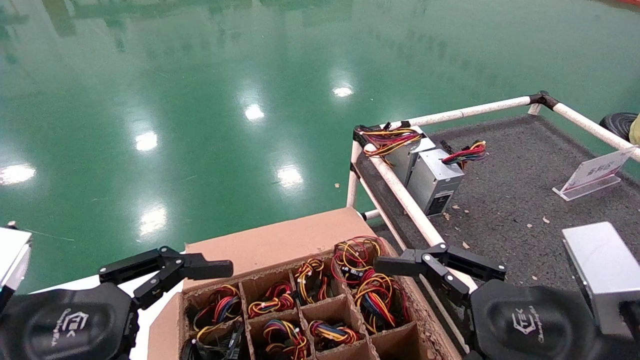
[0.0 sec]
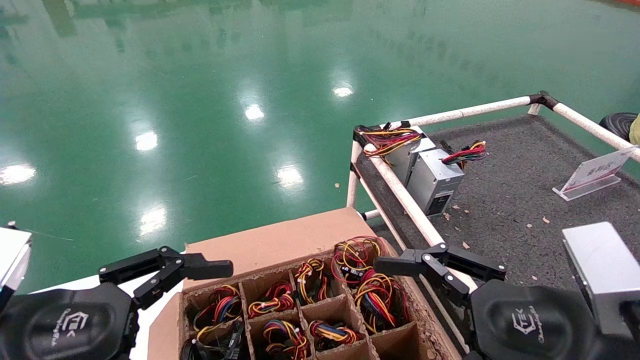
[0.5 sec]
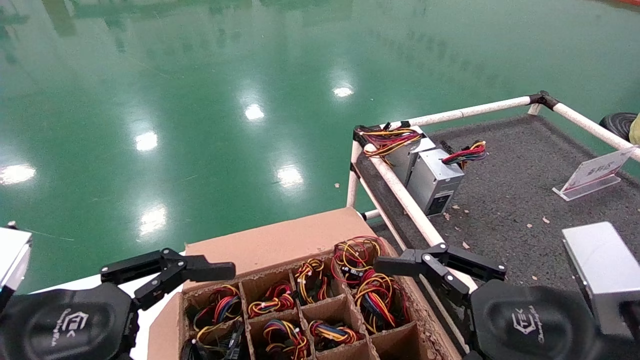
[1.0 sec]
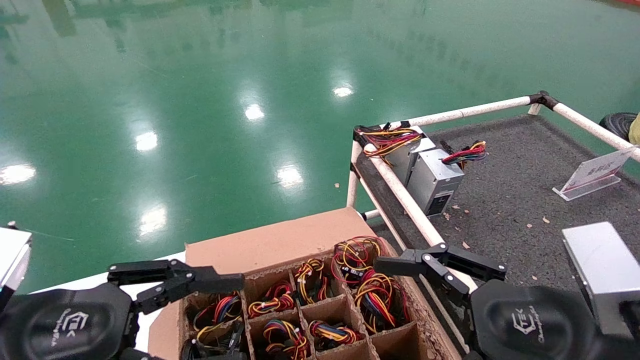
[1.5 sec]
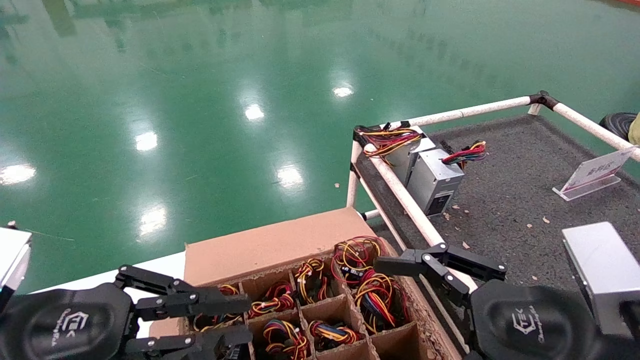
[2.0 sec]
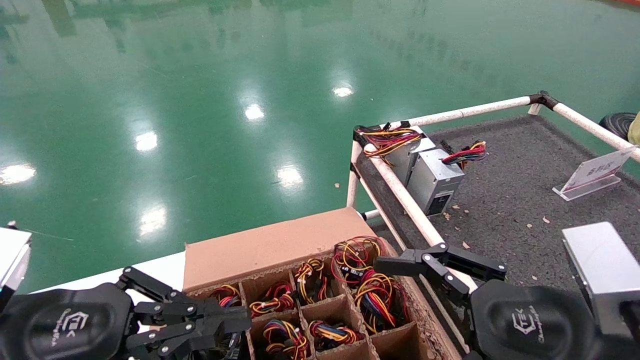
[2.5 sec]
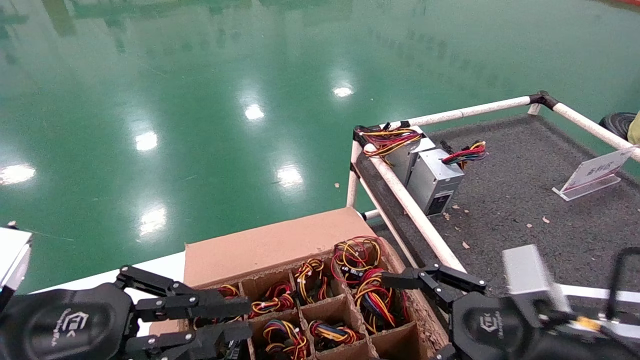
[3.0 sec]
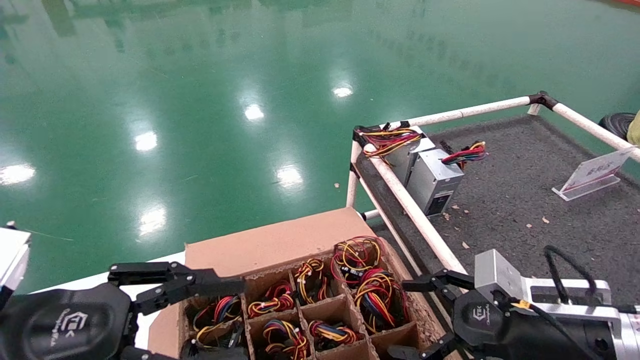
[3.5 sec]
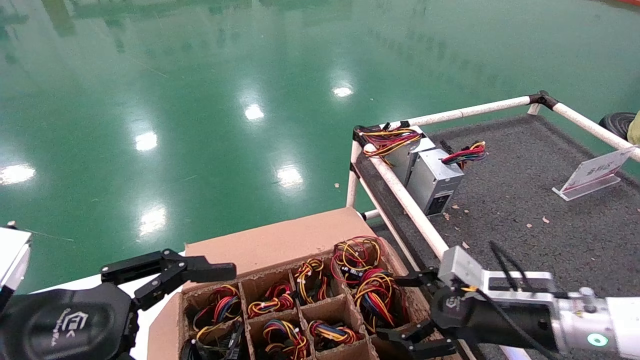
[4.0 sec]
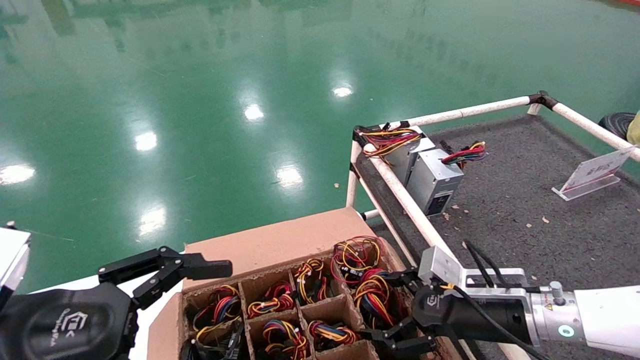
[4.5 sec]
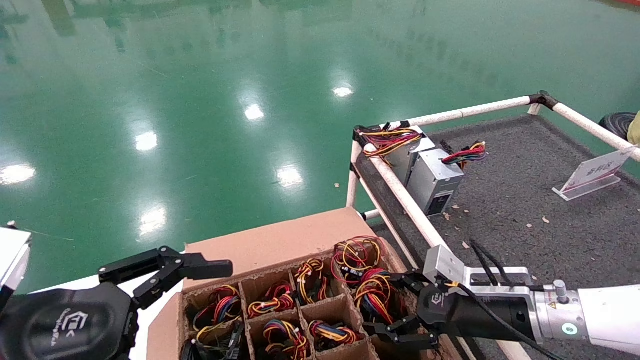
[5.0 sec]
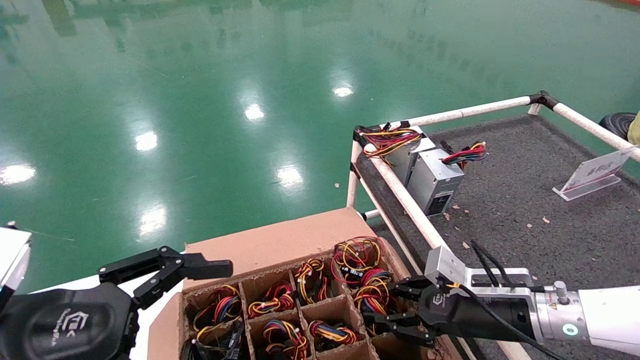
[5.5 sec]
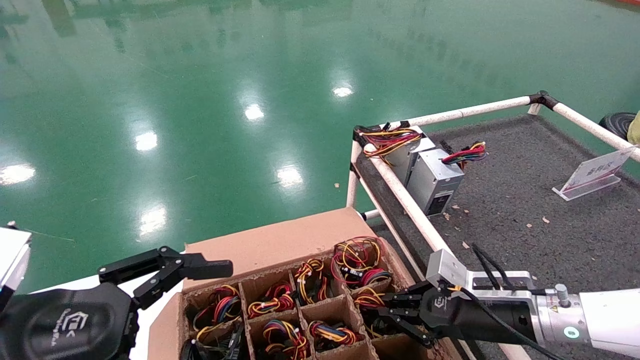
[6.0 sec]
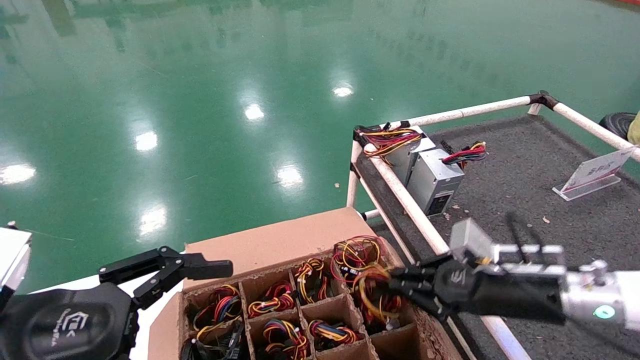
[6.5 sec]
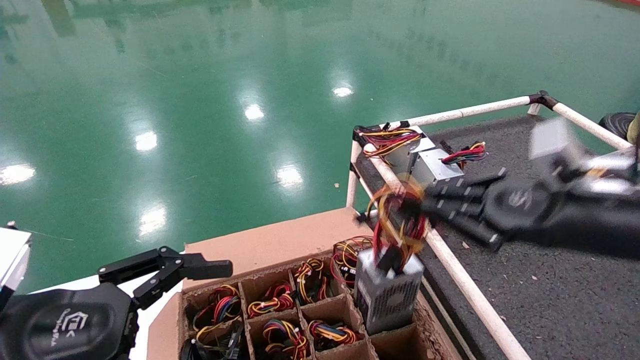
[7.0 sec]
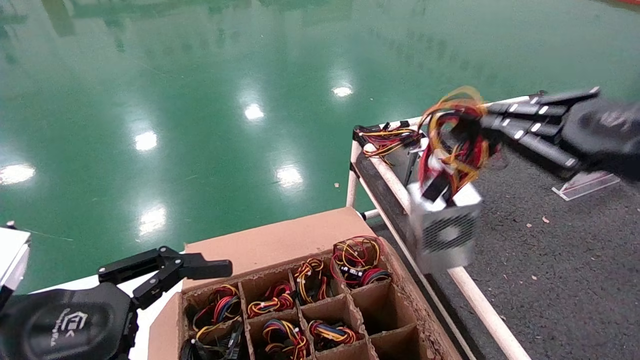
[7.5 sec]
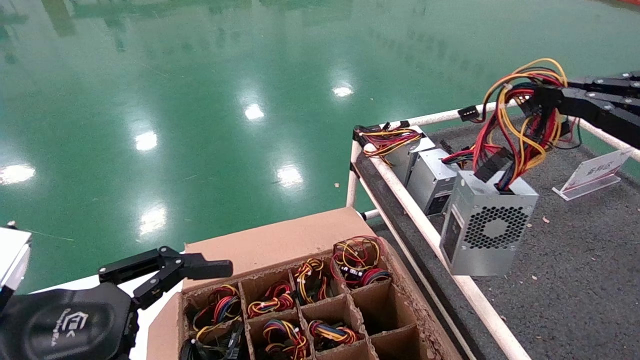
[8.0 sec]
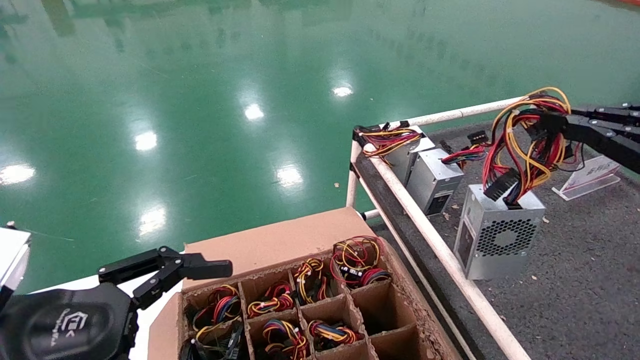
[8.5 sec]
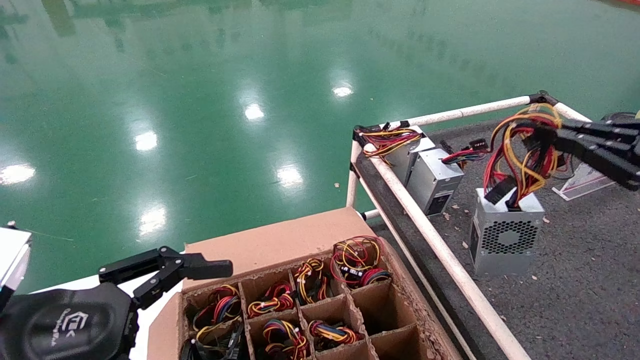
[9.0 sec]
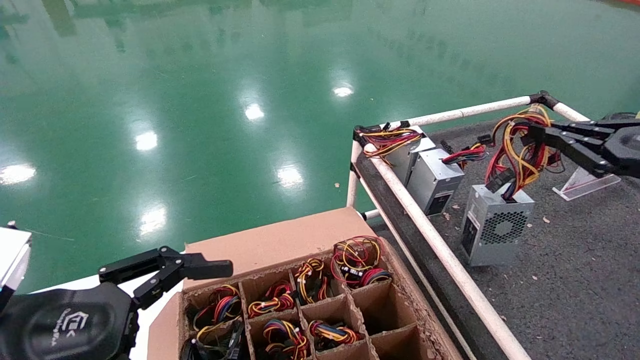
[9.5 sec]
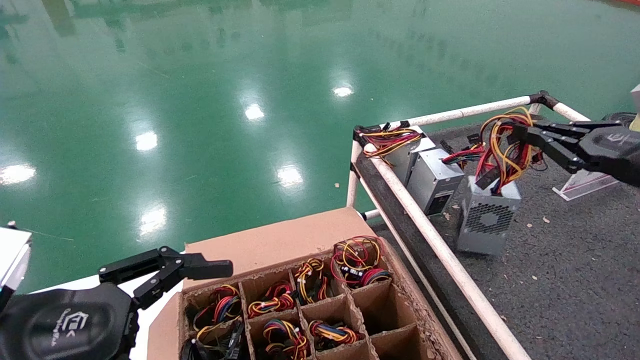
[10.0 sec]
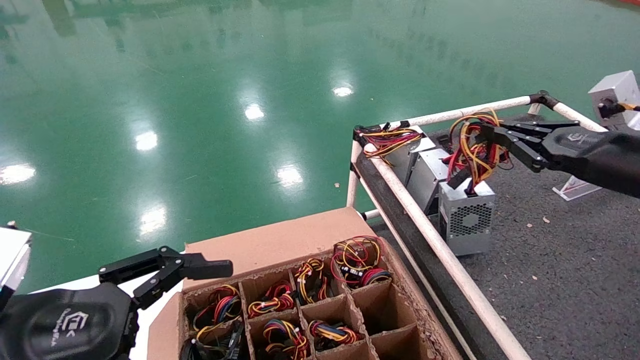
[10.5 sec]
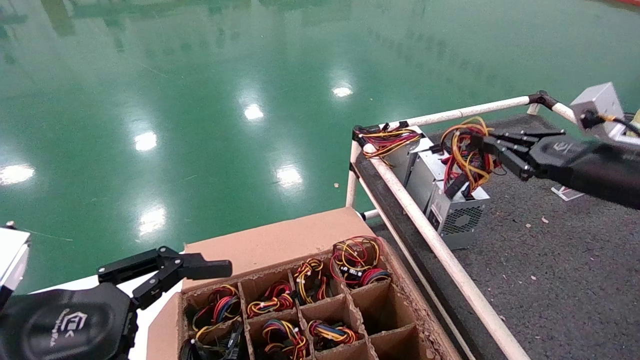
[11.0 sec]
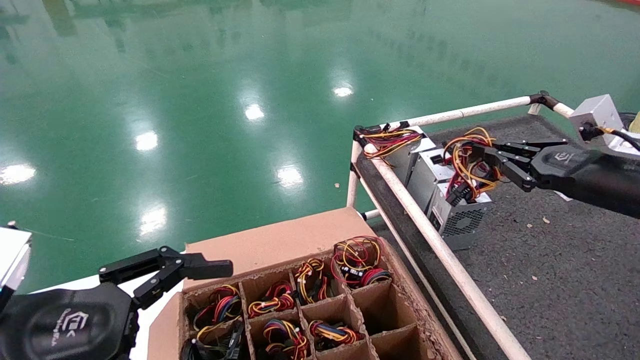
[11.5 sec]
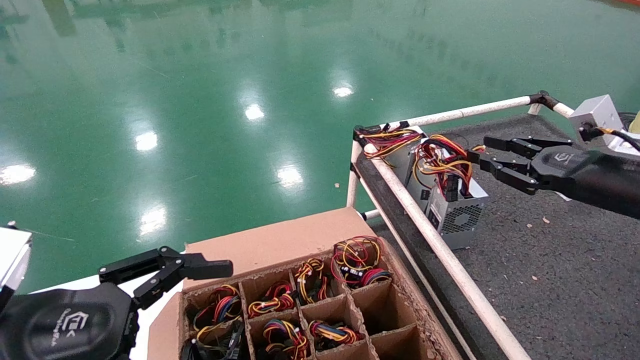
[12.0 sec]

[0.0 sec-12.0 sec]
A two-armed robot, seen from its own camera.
Step, 1.0 sec to 5.5 sec: Grab and lift the power supply from the large box.
Step, 6.0 sec to 11.5 sec: Place the power supply on the operating table.
0.0 sec to 2.0 sec: The left gripper closes its fingers.
2.0 sec to 4.0 sec: The right gripper goes some 15 cm forward and downward. Meanwhile the left gripper opens its fingers.
4.0 sec to 6.0 sec: The right gripper closes its fingers.
6.0 sec to 8.0 sec: The right gripper heads upward, backward and to the right, covering some 30 cm.
8.0 sec to 10.0 sec: The right gripper heads forward, covering some 15 cm.
10.0 sec to 12.0 sec: The right gripper shifts by approximately 5 cm.

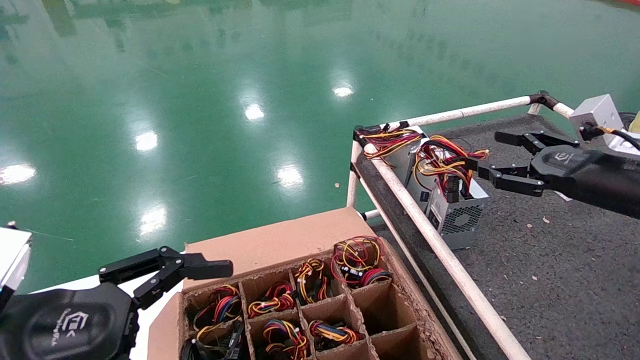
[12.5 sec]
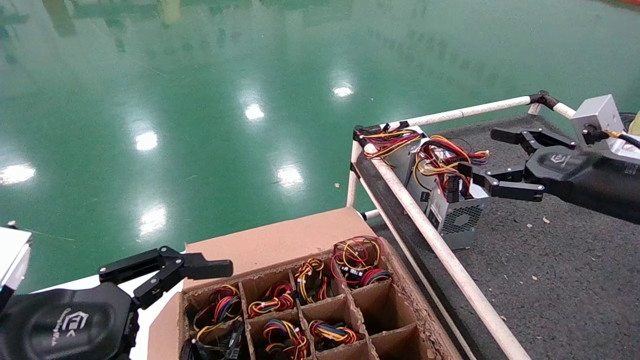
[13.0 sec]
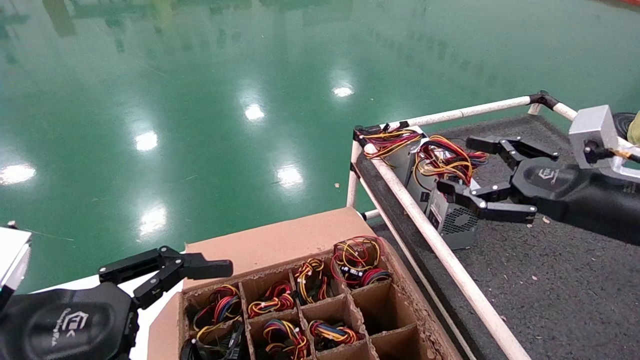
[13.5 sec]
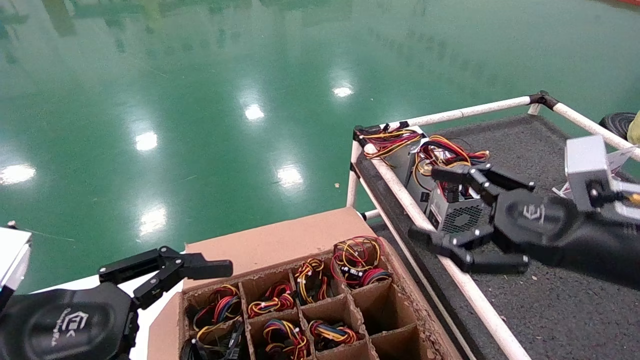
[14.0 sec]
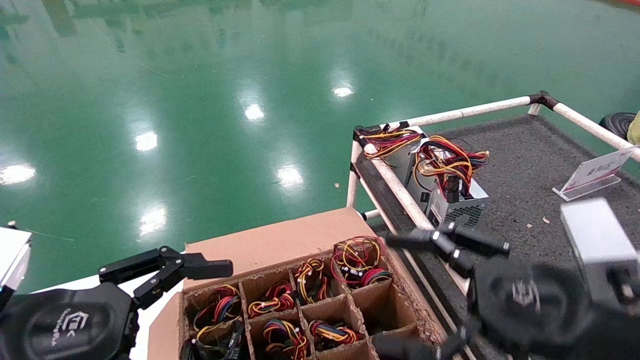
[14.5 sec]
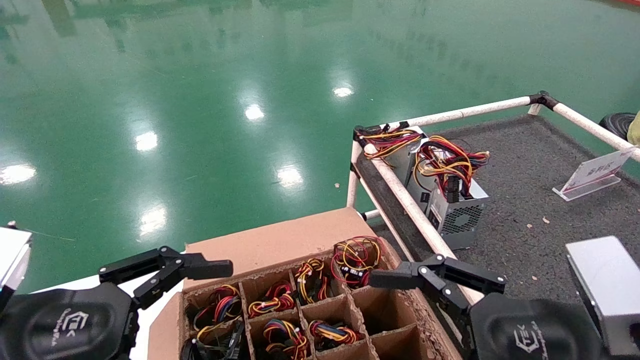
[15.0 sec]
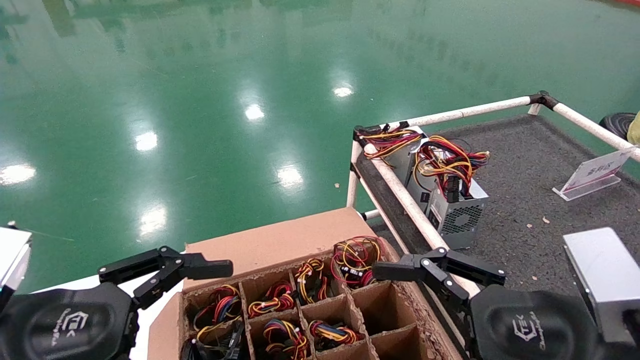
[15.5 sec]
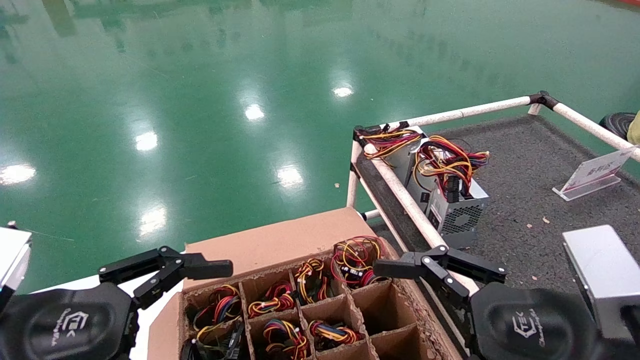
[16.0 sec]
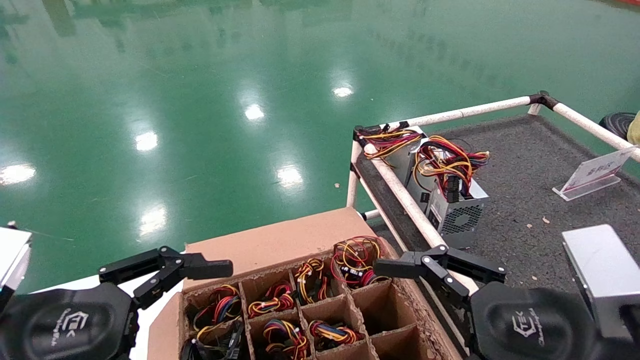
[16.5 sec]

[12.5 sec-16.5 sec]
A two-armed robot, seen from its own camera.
12.5 sec to 14.5 sec: The right gripper moves backward, to the left and downward, about 20 cm.
14.5 sec to 16.5 sec: The grippers stay close to where they were, moving slightly.
